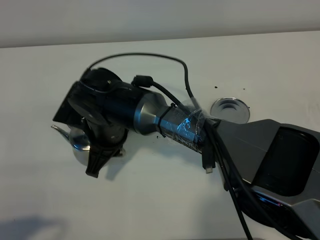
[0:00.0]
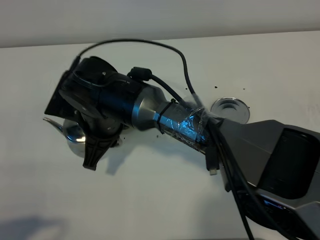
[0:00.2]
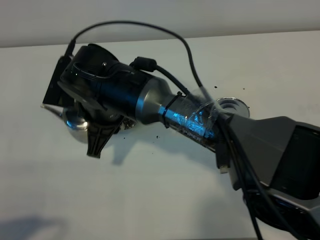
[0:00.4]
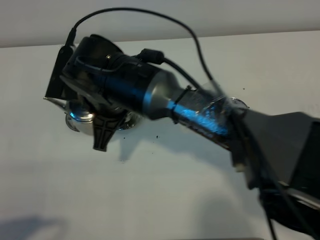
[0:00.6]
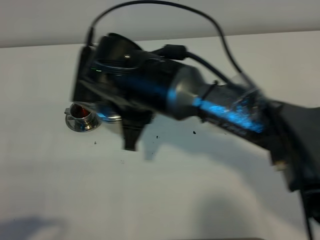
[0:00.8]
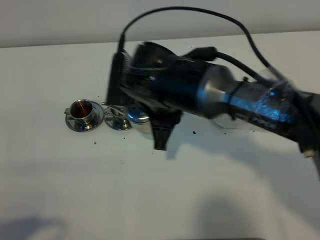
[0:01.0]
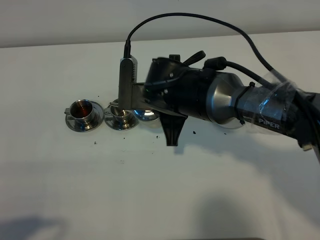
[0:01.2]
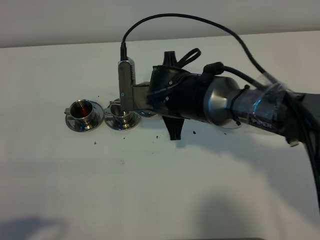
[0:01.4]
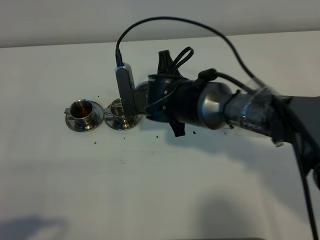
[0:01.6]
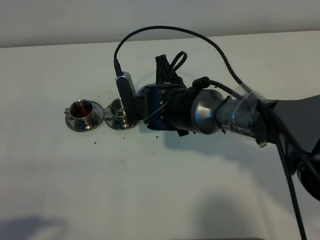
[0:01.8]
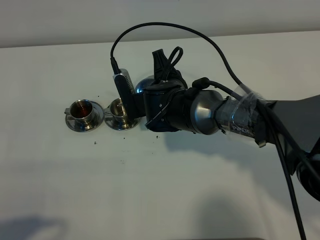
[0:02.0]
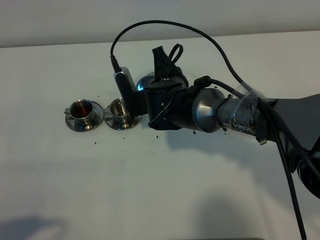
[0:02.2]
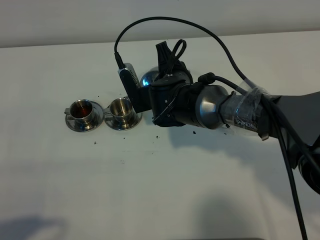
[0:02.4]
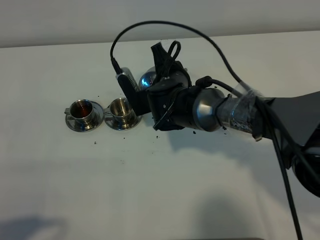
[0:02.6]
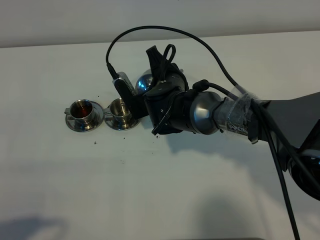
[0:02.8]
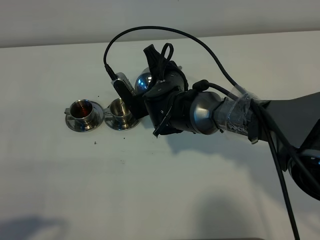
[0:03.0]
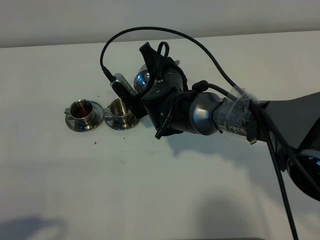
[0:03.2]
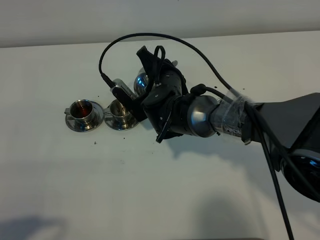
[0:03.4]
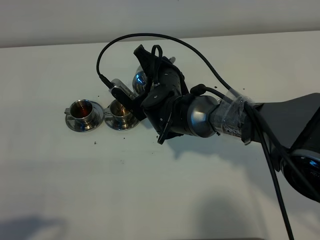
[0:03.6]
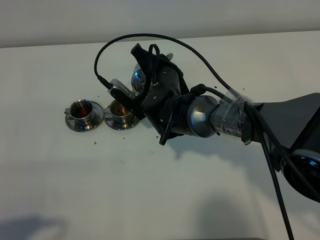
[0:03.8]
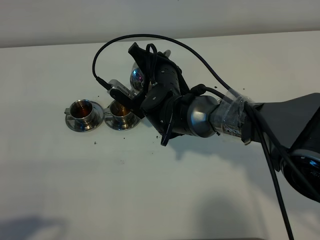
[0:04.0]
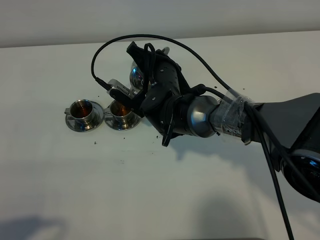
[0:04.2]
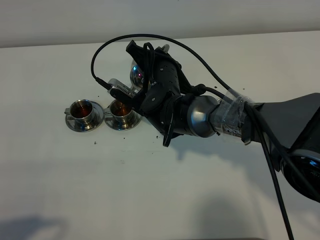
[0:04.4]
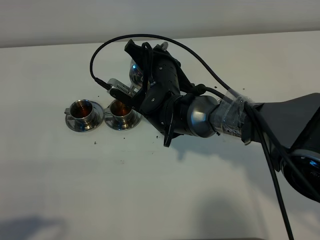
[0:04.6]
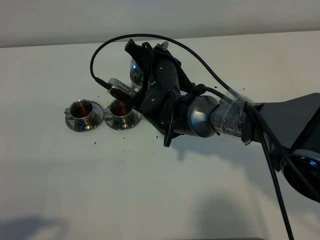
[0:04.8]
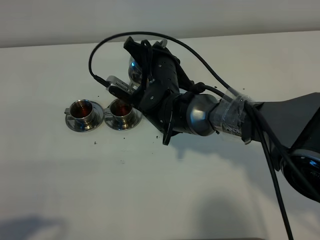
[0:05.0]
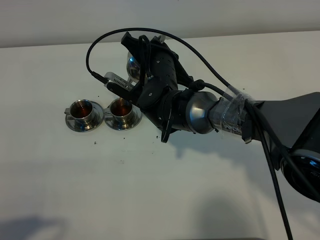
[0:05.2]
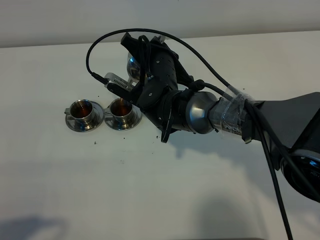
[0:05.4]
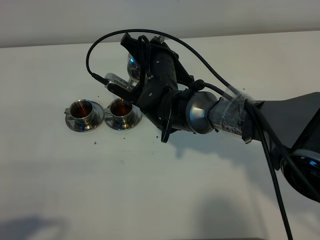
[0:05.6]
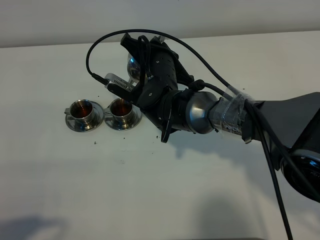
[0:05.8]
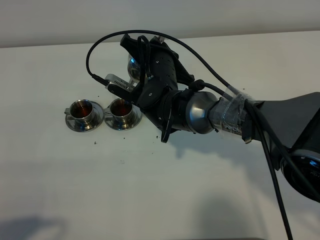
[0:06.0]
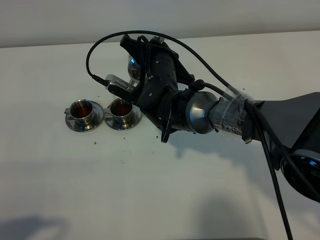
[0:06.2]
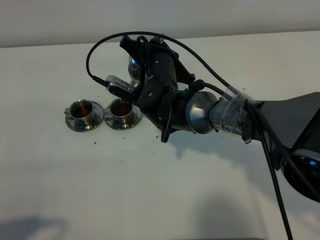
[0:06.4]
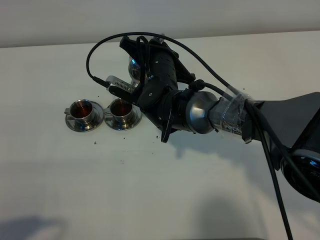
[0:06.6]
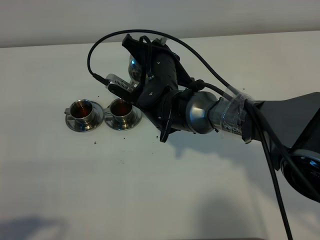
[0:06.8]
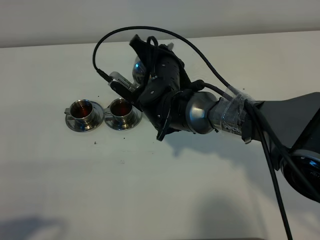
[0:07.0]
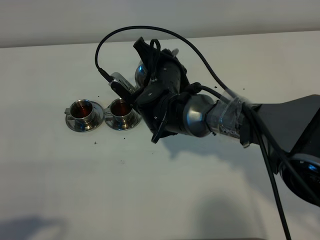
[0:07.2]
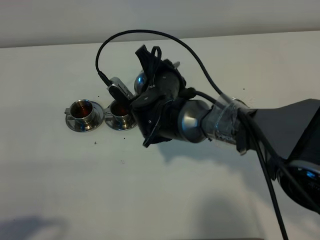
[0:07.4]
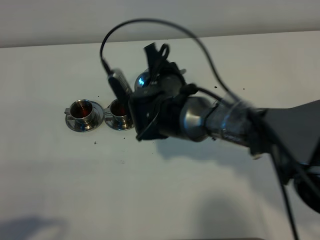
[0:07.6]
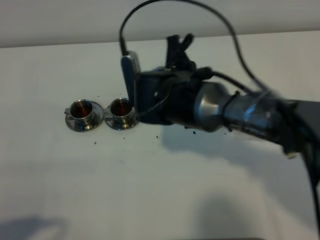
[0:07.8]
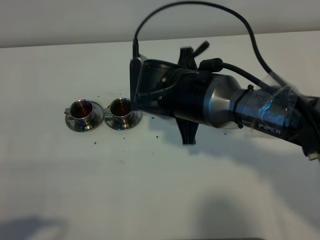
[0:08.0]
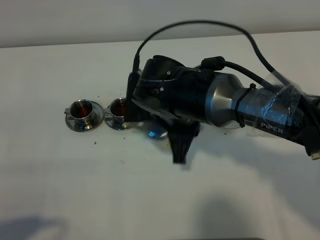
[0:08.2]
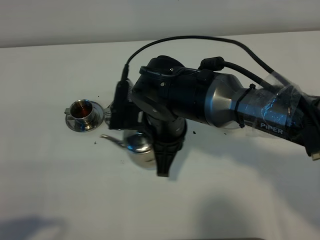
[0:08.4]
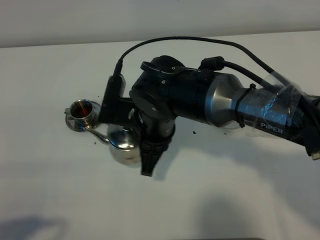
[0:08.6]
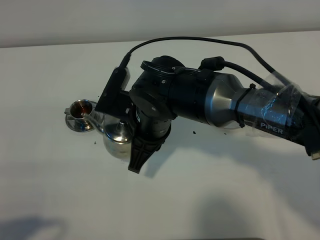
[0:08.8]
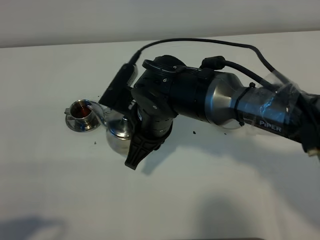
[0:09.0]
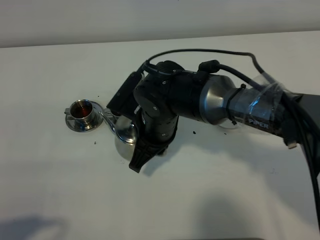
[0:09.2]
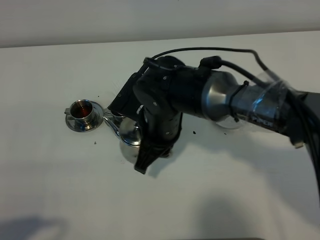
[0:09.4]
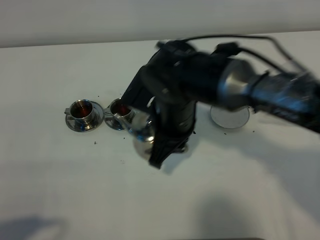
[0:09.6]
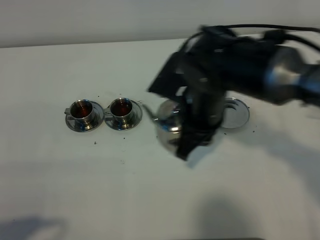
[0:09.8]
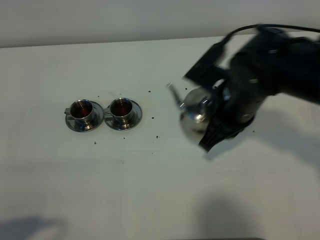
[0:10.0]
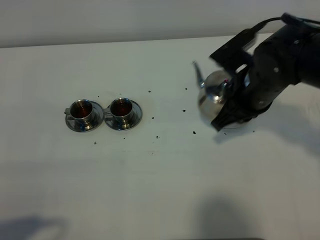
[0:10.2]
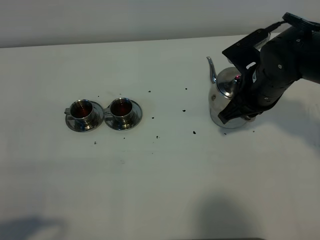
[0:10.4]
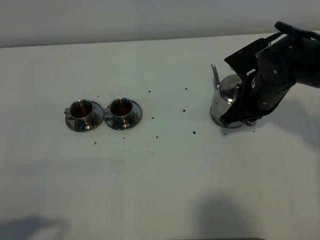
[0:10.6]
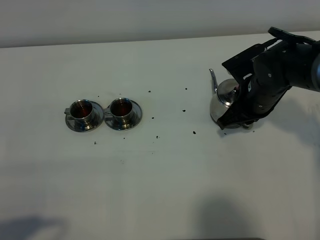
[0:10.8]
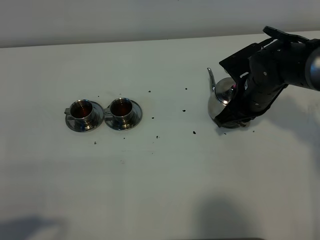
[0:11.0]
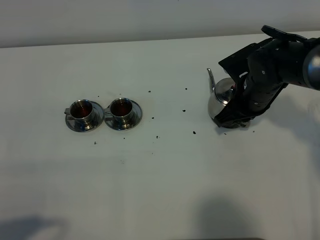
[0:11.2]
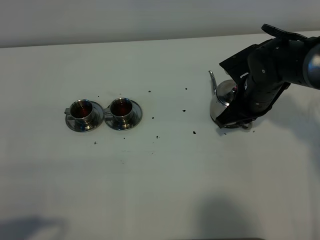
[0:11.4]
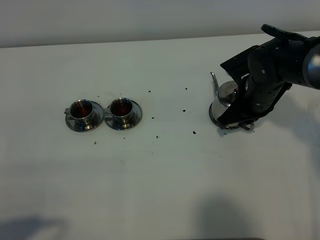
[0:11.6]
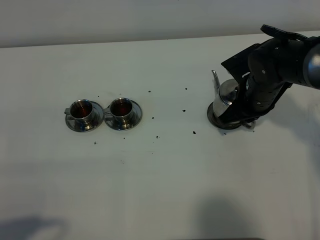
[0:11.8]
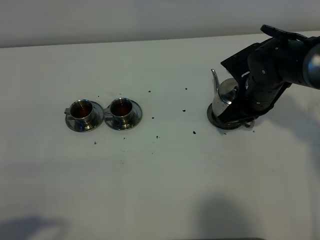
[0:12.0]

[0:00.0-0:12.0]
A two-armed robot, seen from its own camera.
Task of the whole recording: grasp the stainless steel teapot and pour the tea into the two stainless steel teacups one by one, put the stainless steel teapot back in its original place.
Step, 0.0 to 7.8 s: Pour tea into the teacup with the right gripper.
0.0 to 1.6 s: The right gripper travels to the right by roughly 10 cm.
4.4 to 6.0 s: The grippers stay close to where they were, moving slightly.
7.6 to 9.0 s: The right gripper heads backward, covering about 5 cm.
9.0 to 10.4 s: The right gripper shifts approximately 20 cm to the right.
10.4 to 12.0 s: The right gripper changes place by some 5 cm.

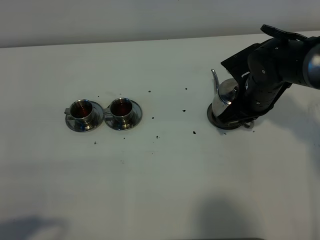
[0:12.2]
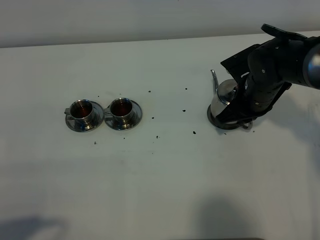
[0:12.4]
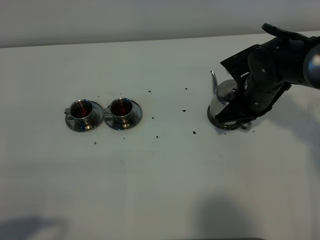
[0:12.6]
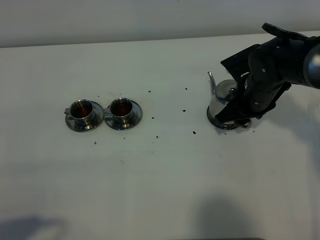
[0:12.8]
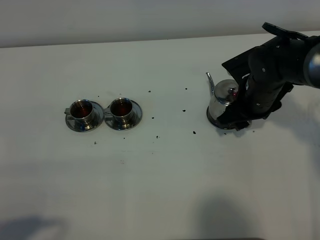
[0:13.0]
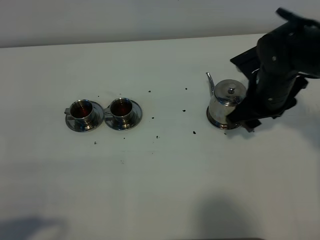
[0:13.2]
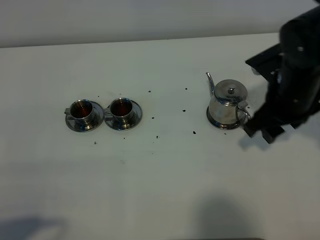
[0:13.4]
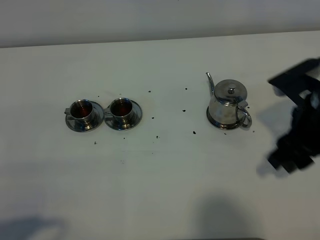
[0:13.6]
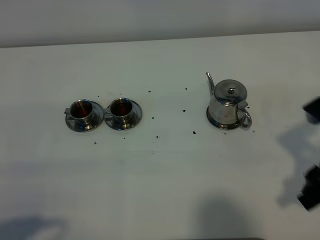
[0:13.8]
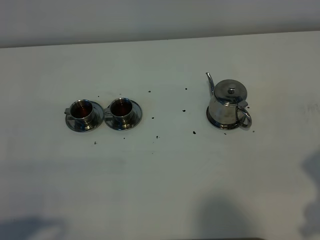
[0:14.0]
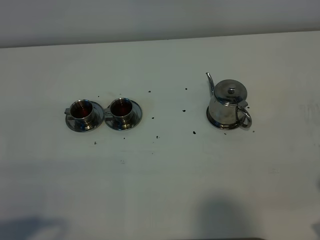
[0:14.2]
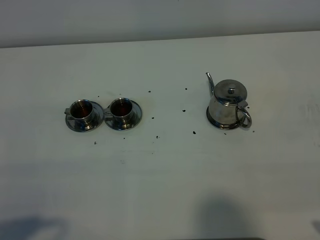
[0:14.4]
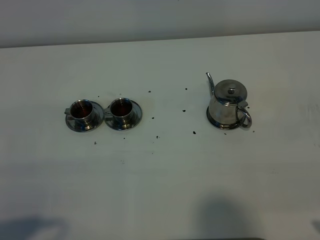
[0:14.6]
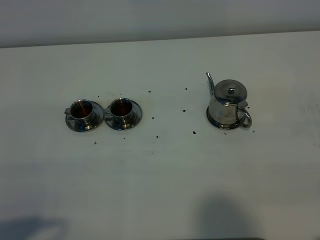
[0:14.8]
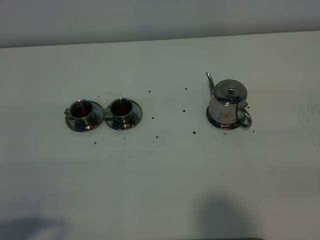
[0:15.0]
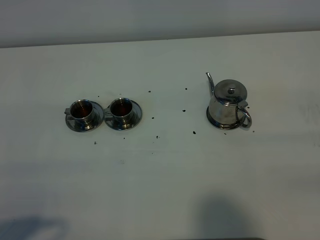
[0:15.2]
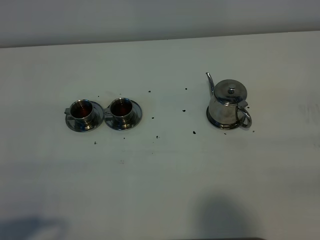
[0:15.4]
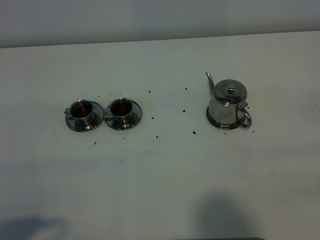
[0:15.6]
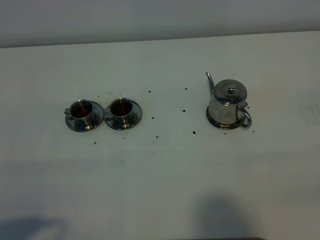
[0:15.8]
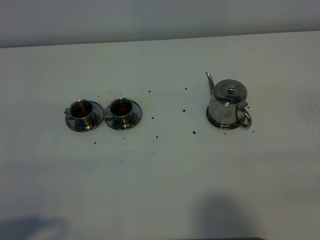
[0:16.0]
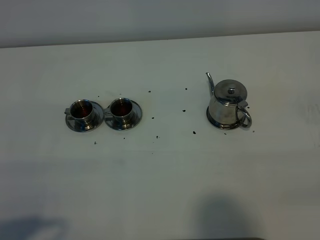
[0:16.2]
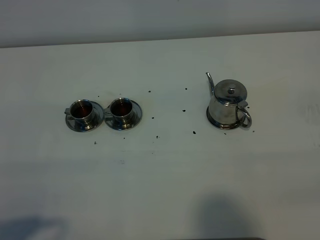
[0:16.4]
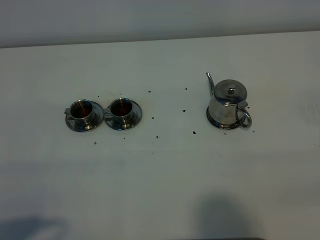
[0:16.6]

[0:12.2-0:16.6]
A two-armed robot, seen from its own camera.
Task of the whole recording: grasp the stainless steel teapot and pour the tea into the two stainless steel teacups one by one, put the stainless steel teapot back in its original place.
12.2 to 13.6 s: The right gripper is displaced backward and upward by approximately 15 cm, and opens up.
13.6 to 15.2 s: The right gripper heads backward and to the right, covering approximately 20 cm.

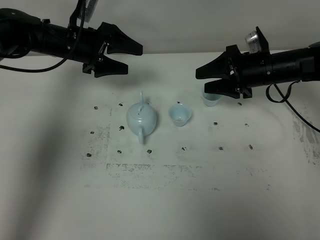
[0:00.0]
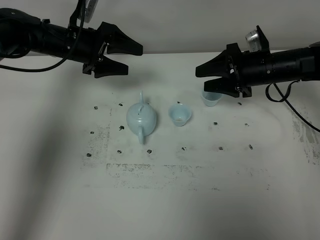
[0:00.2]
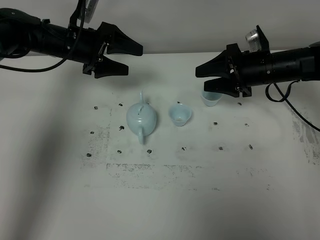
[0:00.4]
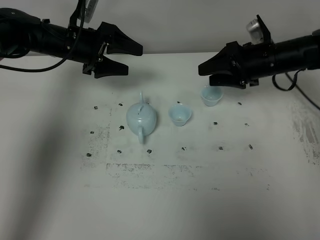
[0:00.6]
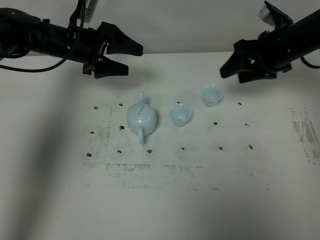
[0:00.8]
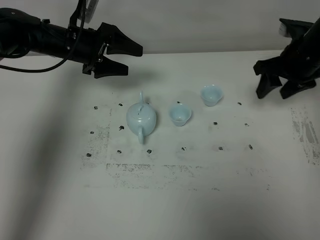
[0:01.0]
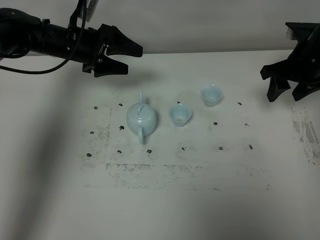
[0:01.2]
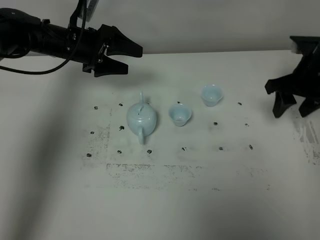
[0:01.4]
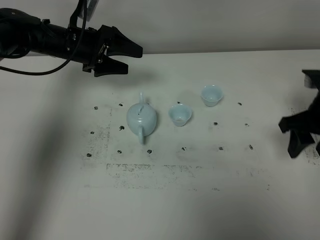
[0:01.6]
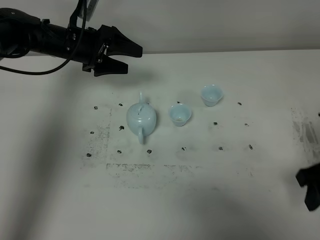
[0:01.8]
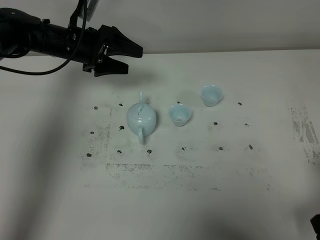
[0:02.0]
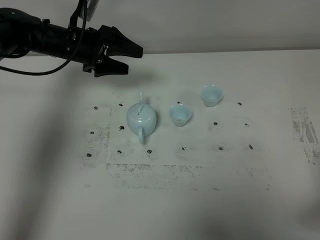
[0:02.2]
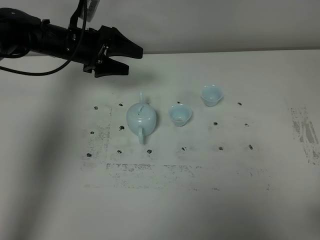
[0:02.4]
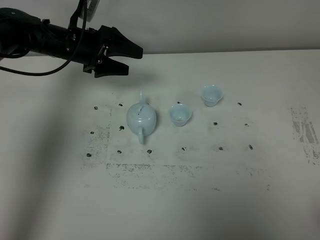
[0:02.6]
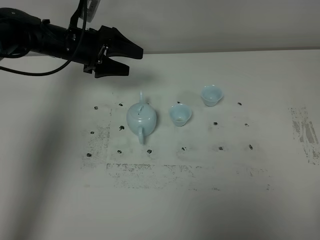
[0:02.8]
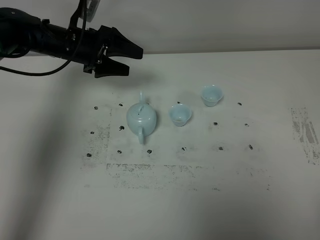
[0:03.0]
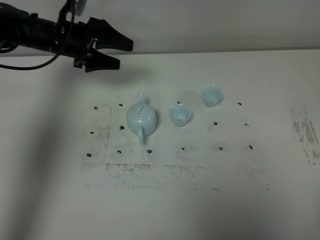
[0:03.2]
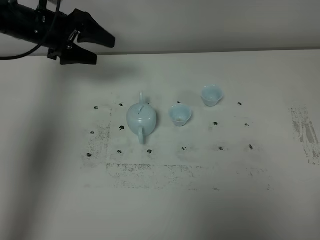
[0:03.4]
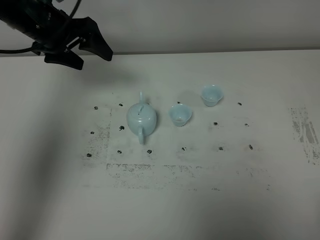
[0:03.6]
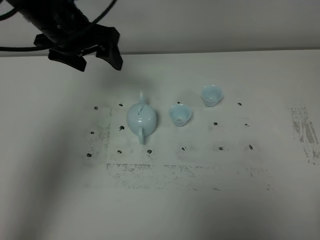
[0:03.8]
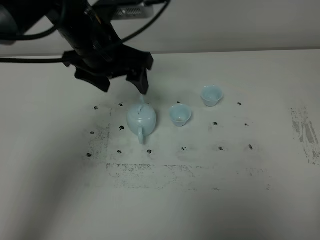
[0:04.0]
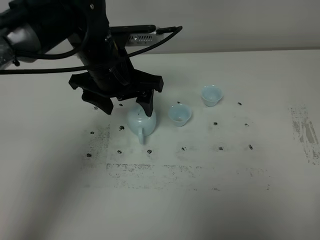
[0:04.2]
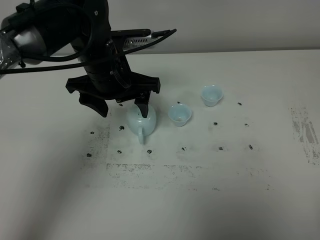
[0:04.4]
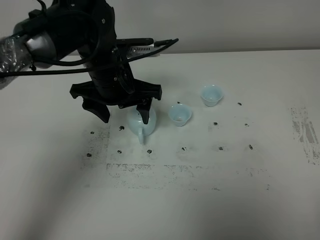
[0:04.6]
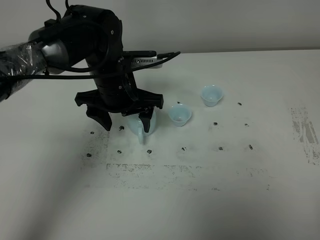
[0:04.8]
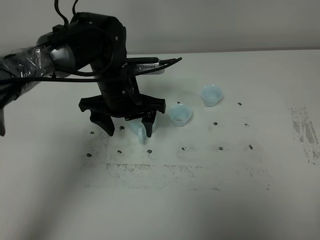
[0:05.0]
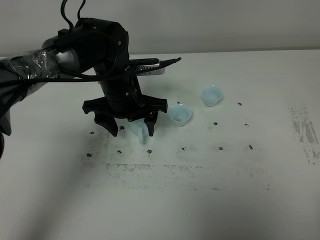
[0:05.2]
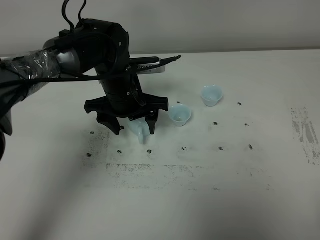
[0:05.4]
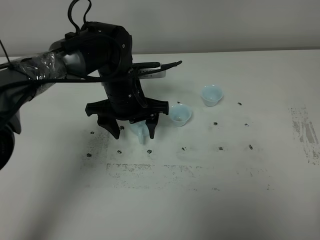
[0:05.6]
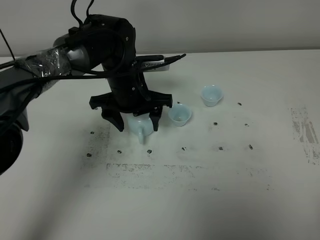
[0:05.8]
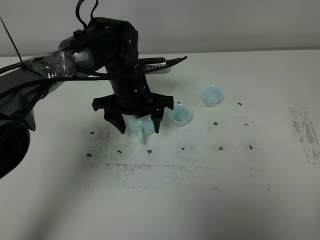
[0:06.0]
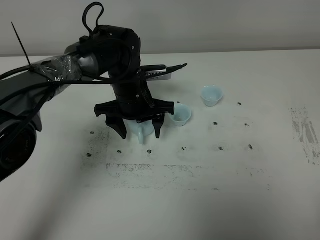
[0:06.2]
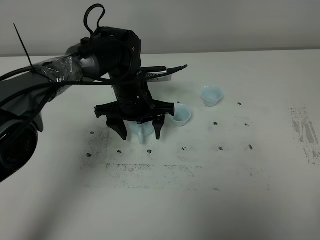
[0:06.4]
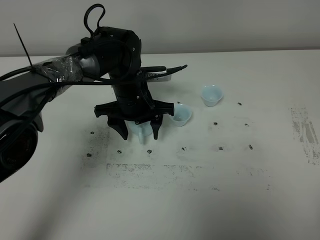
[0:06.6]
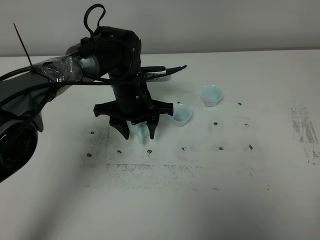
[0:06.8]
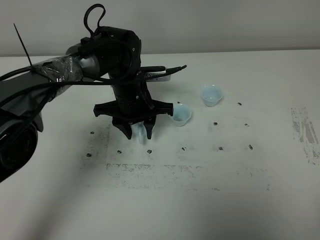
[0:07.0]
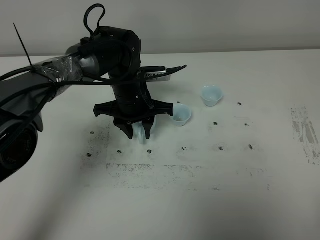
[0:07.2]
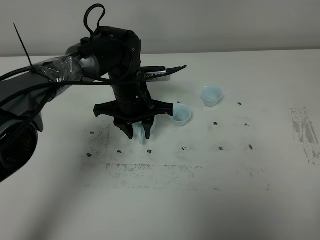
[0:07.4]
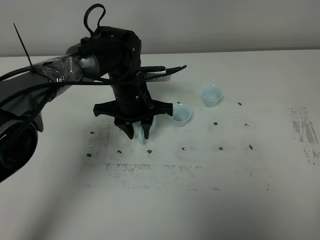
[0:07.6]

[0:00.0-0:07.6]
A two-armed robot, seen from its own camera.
Task of the whole recording: grasp the blue porcelain teapot and pour the tea into the two blue porcelain teacups one by one, put the blue porcelain teapot back in its original place.
0.0 to 1.6 s: The right gripper is displaced backward and to the right by some 15 cm.
1.6 to 3.0 s: The right gripper moves backward, some 30 cm.
3.0 to 4.6 s: The left gripper goes about 15 cm to the right and backward.
4.6 to 6.0 s: The left gripper is displaced downward by roughly 5 cm.
6.0 to 7.6 s: The left gripper closes its fingers.
